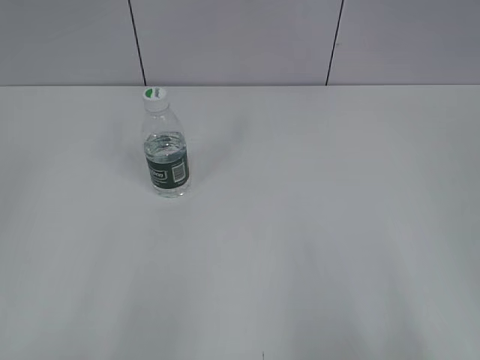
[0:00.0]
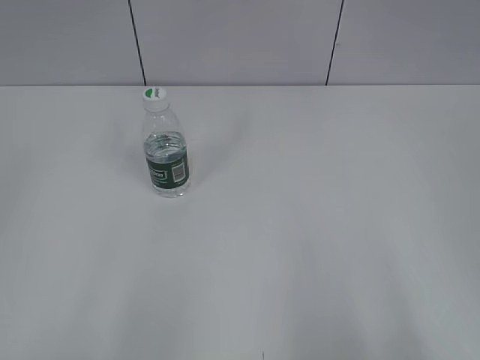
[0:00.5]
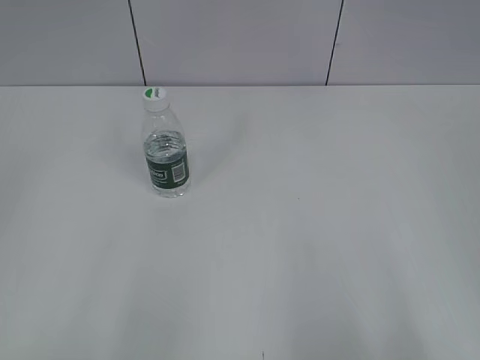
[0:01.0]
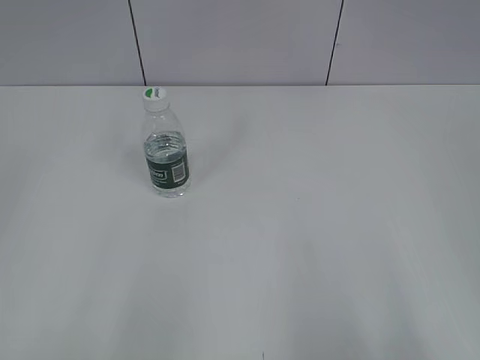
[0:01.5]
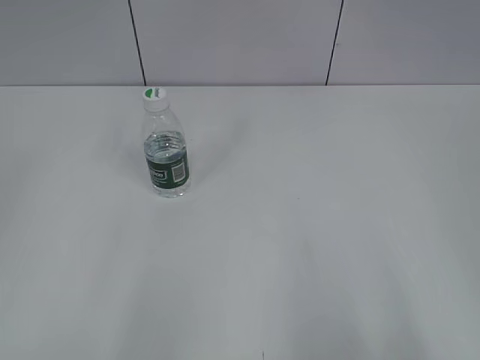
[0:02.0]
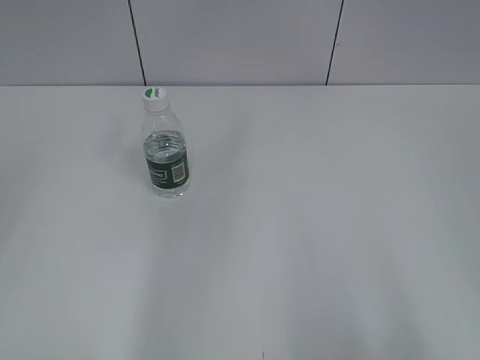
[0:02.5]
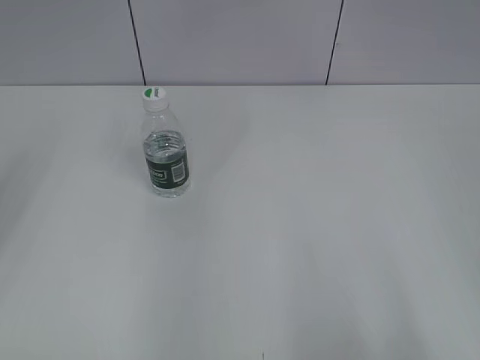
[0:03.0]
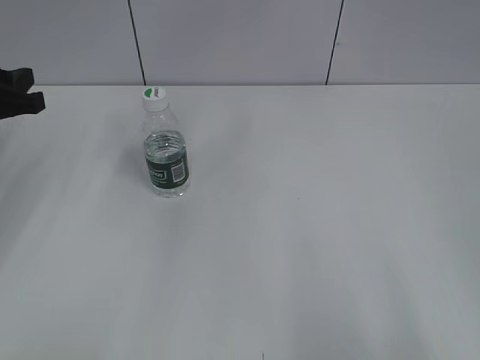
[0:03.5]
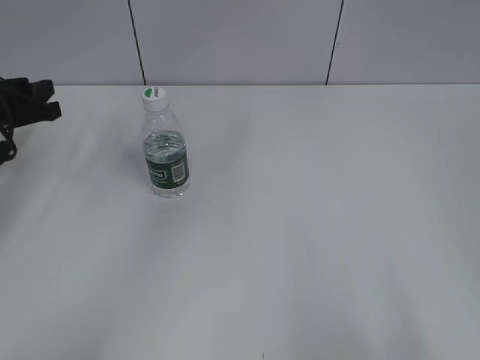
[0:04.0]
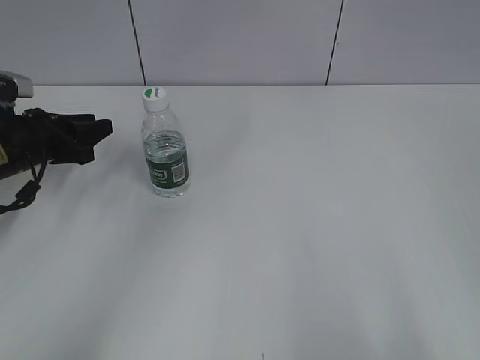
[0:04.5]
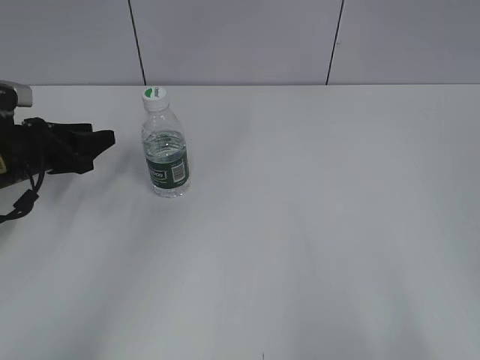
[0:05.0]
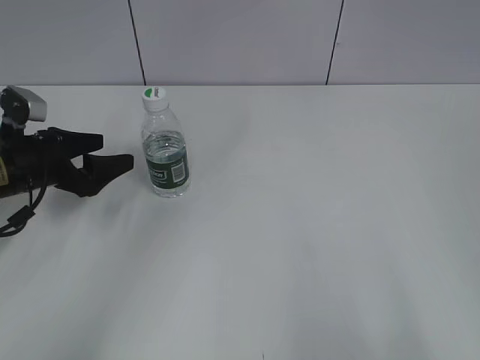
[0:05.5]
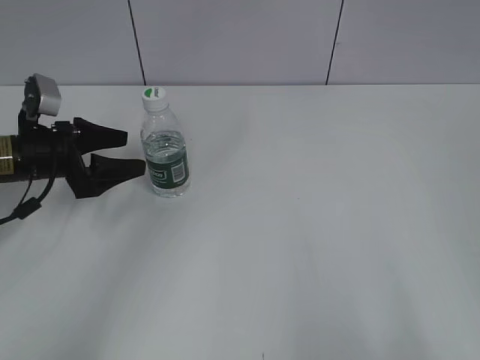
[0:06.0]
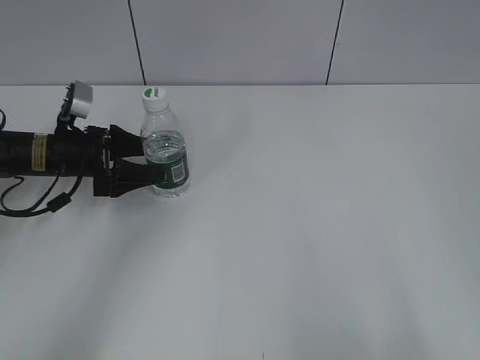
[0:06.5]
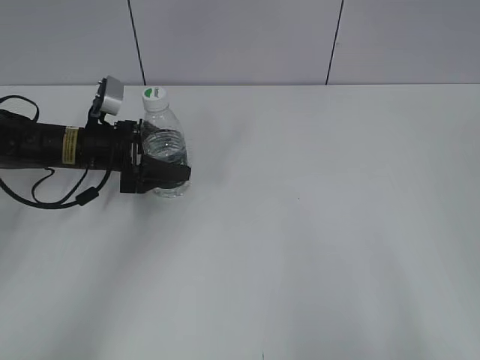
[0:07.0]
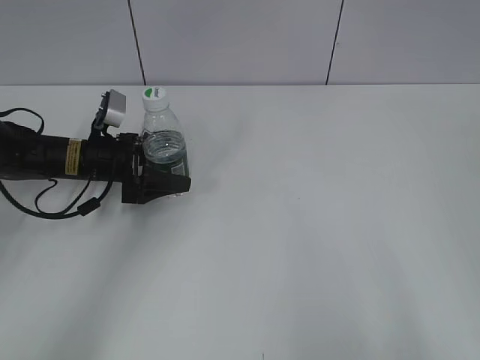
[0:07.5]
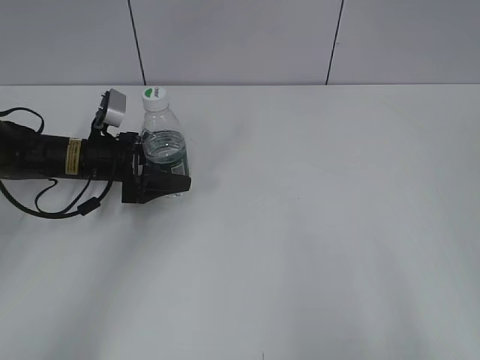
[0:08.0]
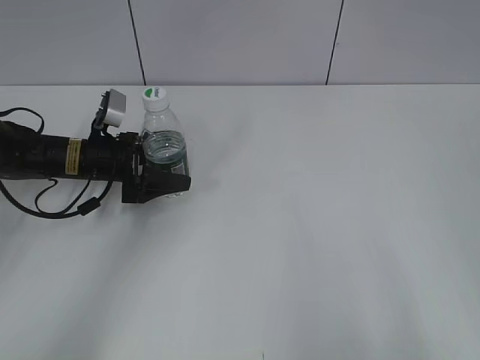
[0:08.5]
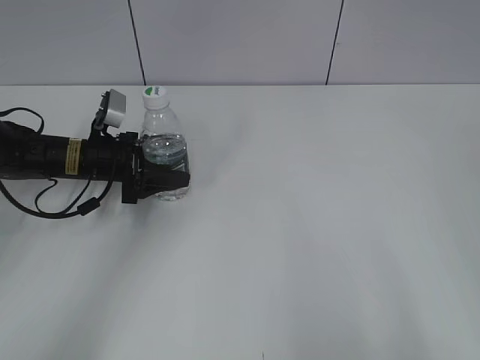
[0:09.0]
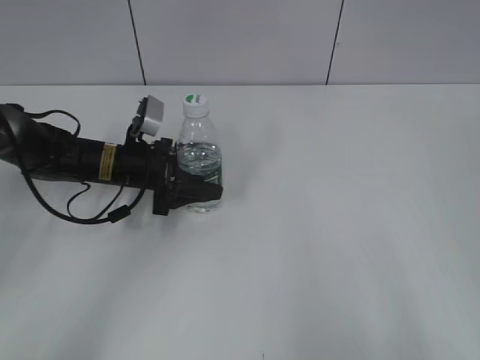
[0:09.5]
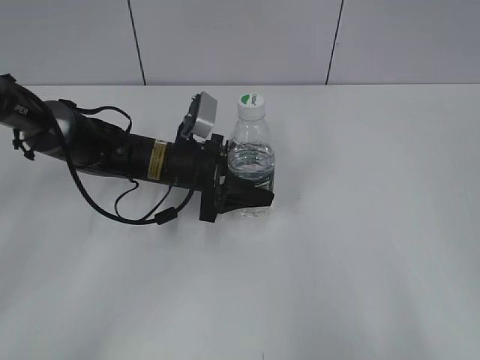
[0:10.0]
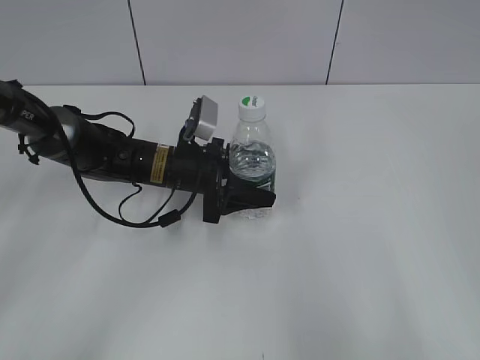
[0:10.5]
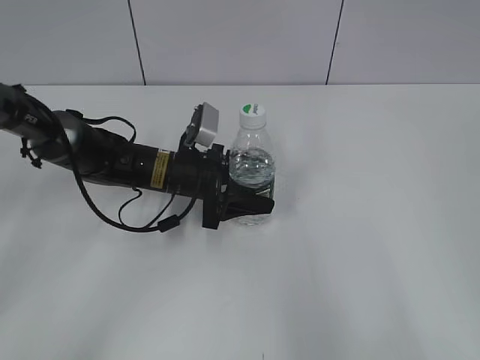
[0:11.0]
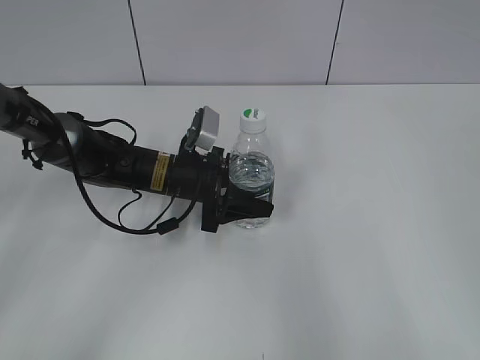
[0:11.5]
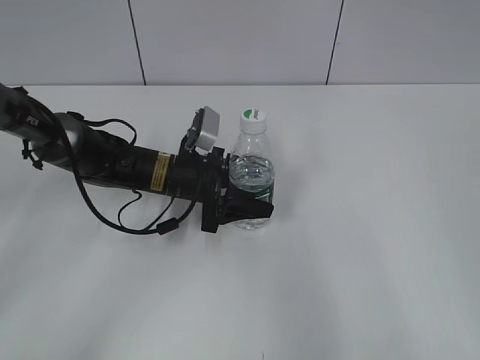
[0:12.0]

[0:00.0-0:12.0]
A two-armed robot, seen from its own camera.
Step, 0:00.0 to 0:08.5: Grasp the bottle and move it to the center of the table with the left gripper.
0:02.0 to 0:04.0: The left gripper moves forward, some 35 cm.
0:04.0 to 0:06.0: The left gripper heads to the right, covering some 5 cm, and opens its fingers.
0:06.0 to 0:08.0: The left gripper travels to the right and forward by approximately 5 cm.
0:08.0 to 0:10.0: The left gripper goes about 10 cm to the right, and closes its fingers.
0:10.0 to 0:12.0: The right gripper shifts by approximately 5 cm.

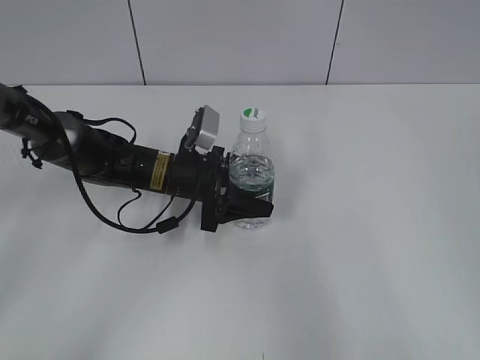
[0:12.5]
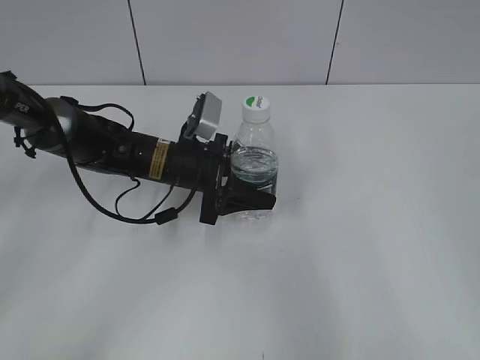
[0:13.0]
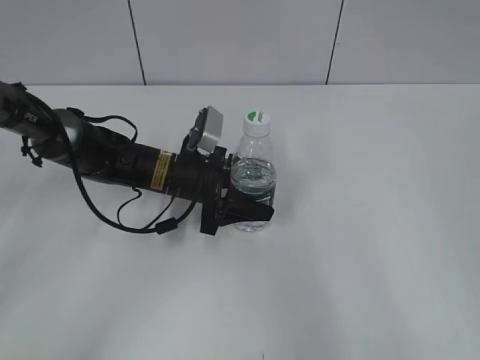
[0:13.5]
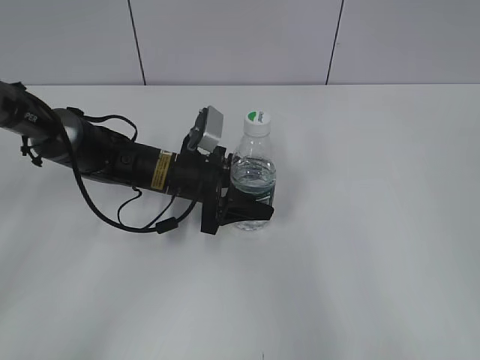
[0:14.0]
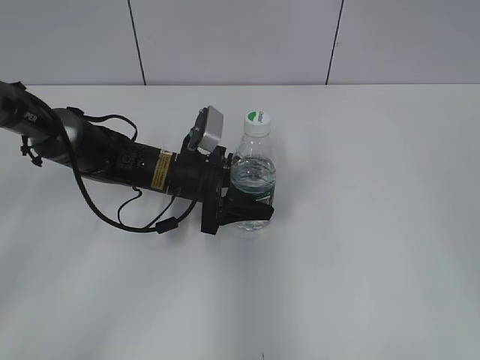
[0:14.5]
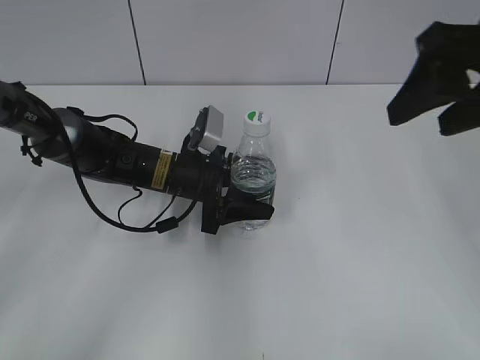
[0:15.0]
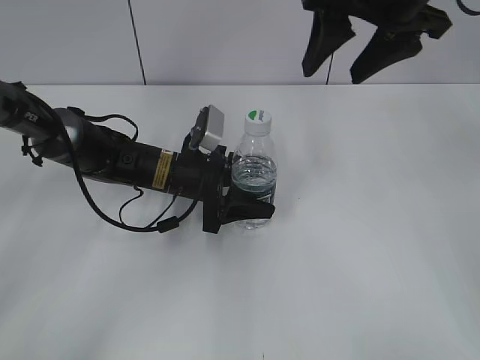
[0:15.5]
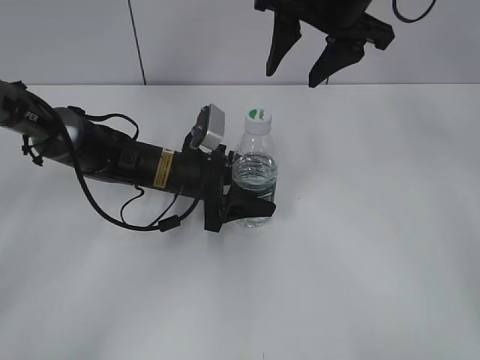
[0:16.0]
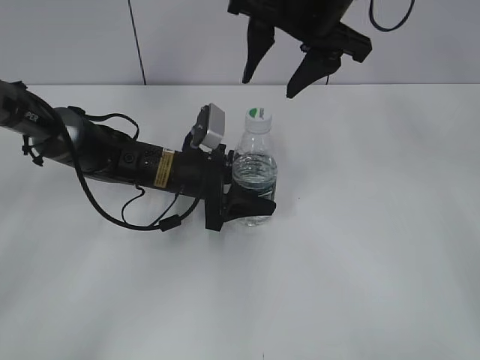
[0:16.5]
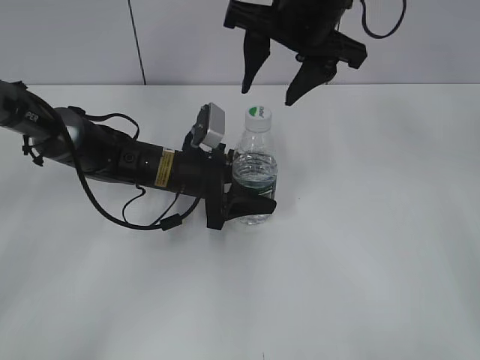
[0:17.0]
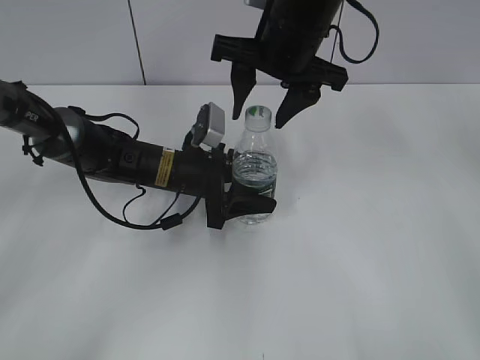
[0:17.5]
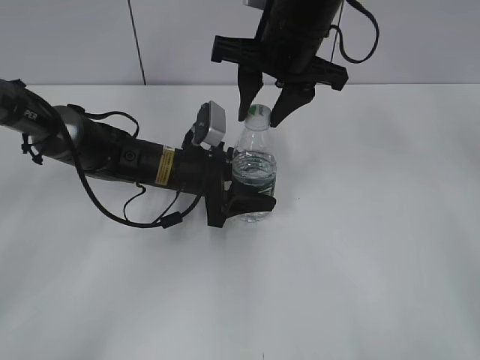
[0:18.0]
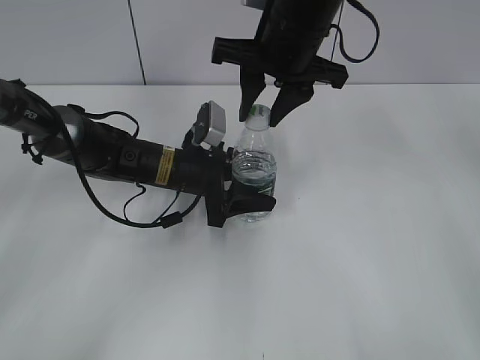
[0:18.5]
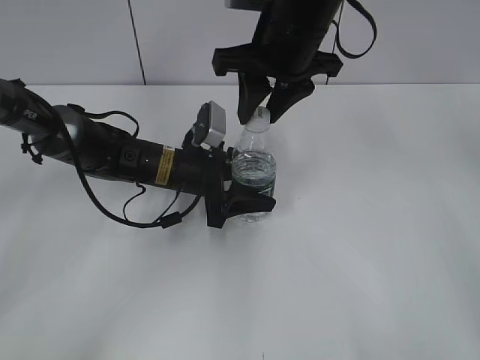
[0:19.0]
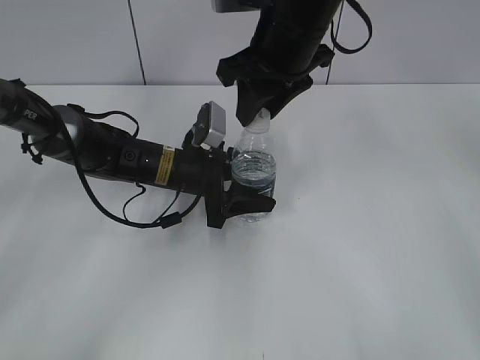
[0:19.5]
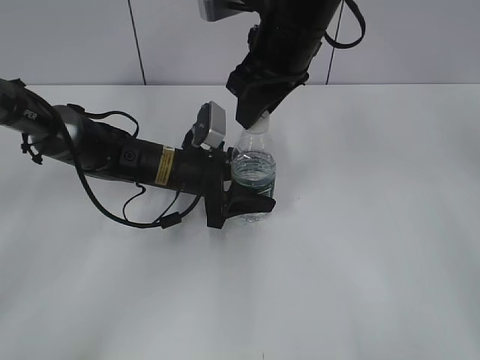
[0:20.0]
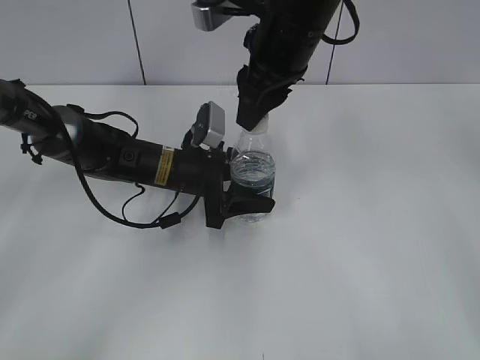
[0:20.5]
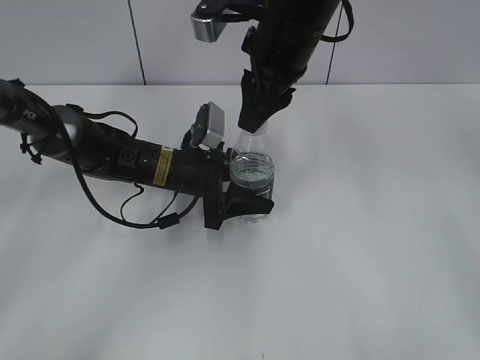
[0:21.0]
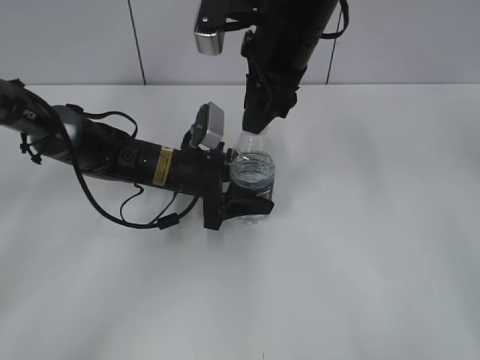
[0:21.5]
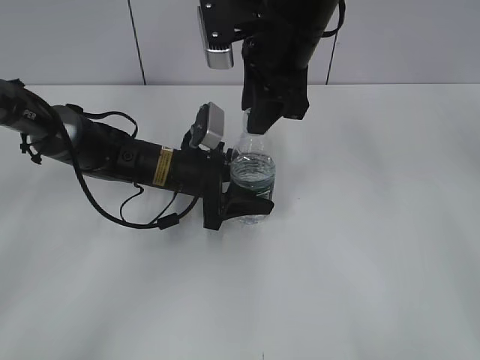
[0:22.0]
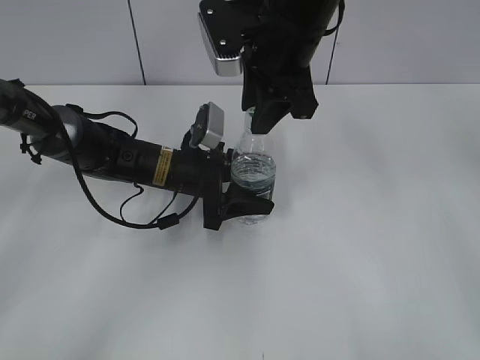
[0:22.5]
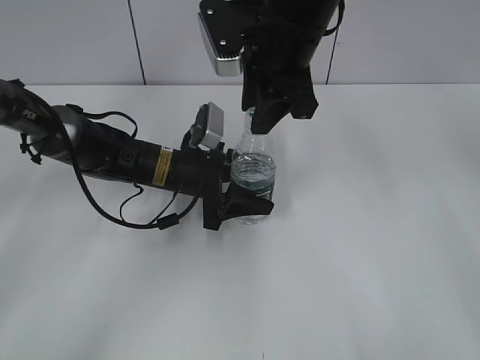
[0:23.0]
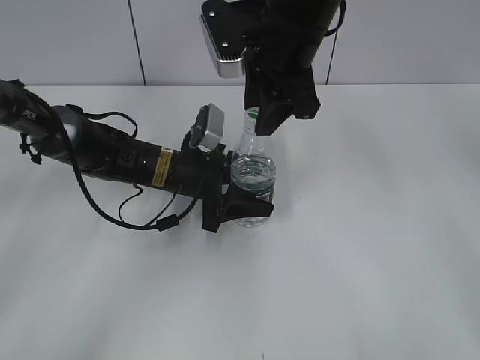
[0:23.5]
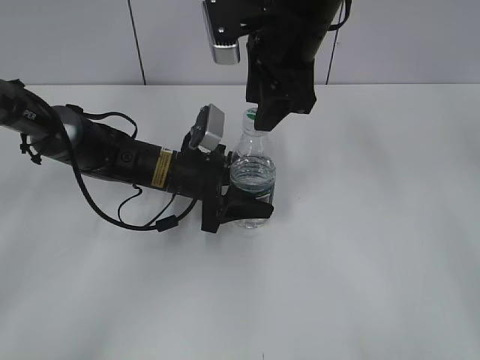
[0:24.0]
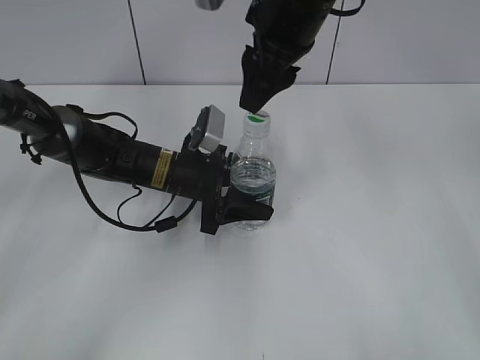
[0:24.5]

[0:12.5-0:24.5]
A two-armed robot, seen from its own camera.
Step, 0:12.5 to 0:14.5: Lift the bottle and move it to the center of the table with the left gripper.
0:12.5 to 0:14.5: The right gripper moves forward, some 10 cm.
0:14.5 to 0:16.5: The right gripper shifts some 30 cm forward and to the left.
0:16.5 to 0:18.5: The right gripper closes.
0:22.5 to 0:24.5: The right gripper opens up.

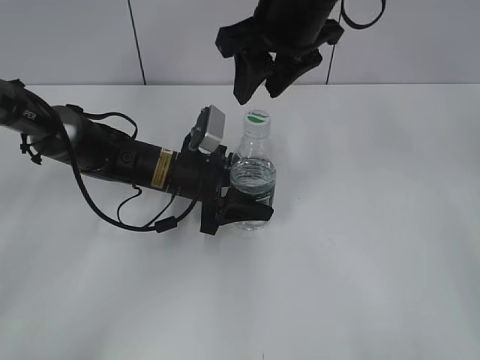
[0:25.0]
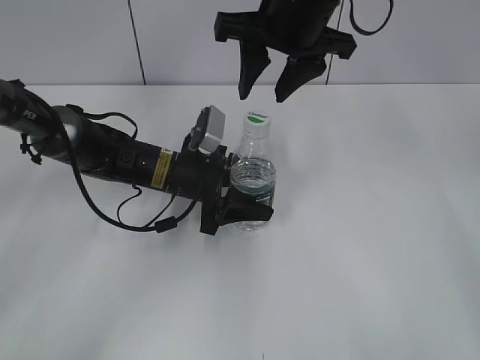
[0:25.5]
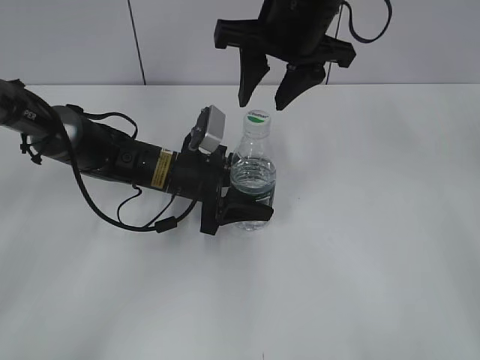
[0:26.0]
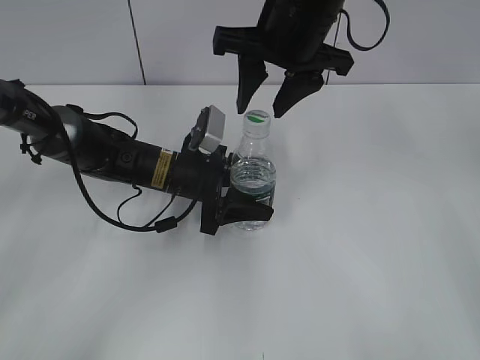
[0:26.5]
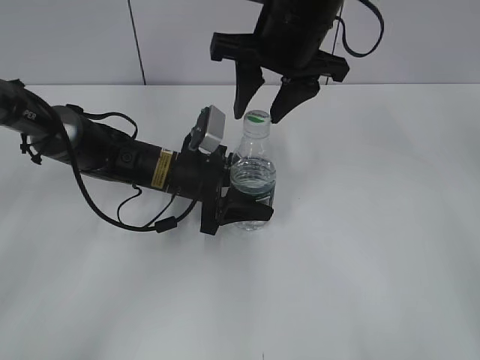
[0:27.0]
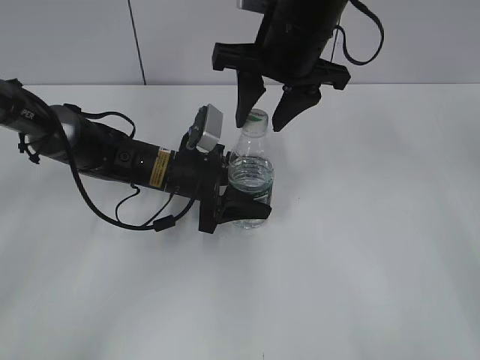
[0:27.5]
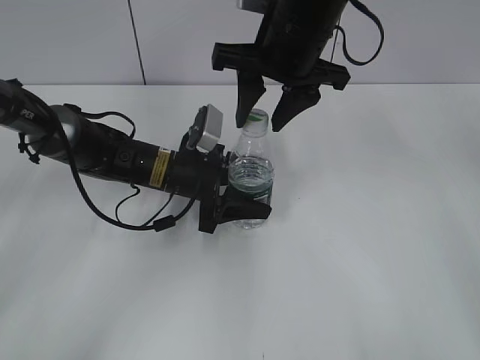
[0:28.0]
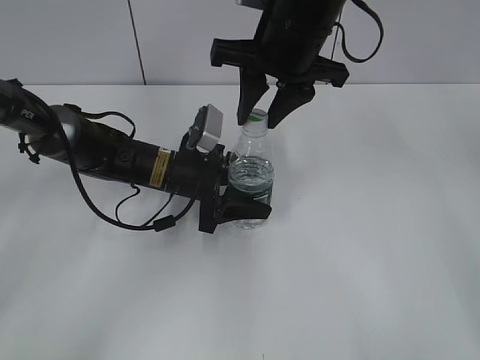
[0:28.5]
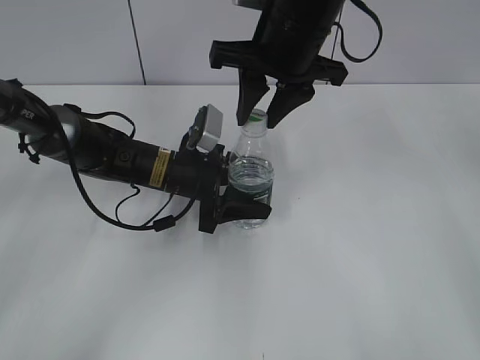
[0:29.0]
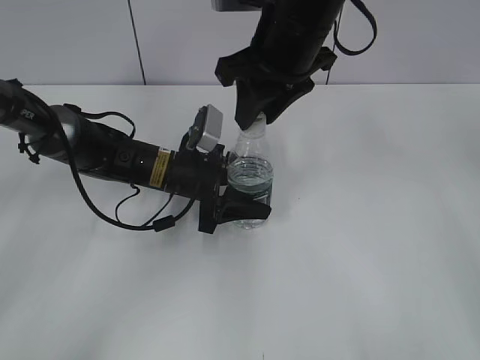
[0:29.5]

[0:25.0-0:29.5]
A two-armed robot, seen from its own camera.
0:27.0 to 0:29.5: The right gripper closes.
